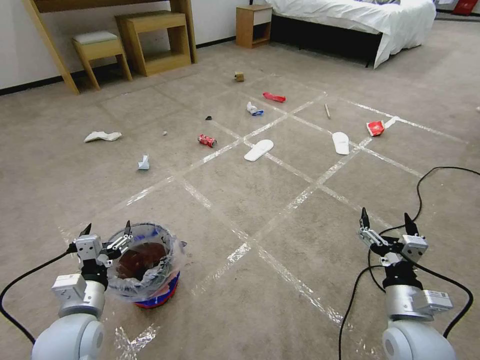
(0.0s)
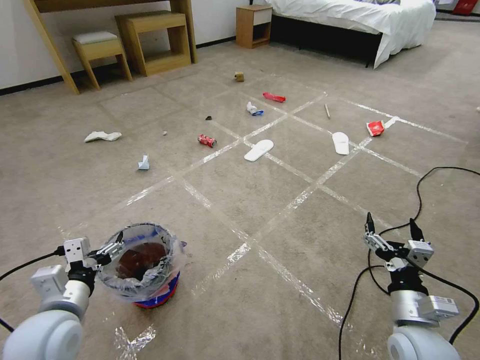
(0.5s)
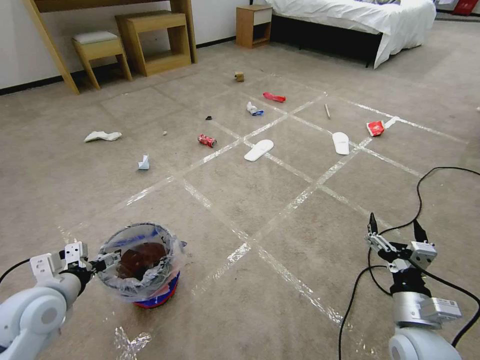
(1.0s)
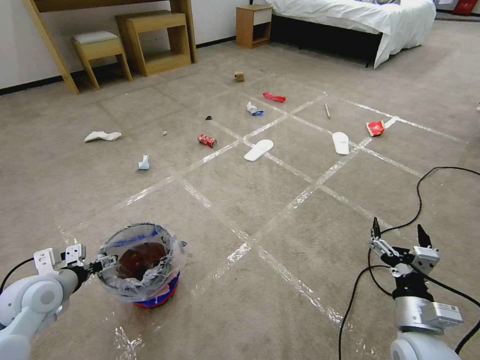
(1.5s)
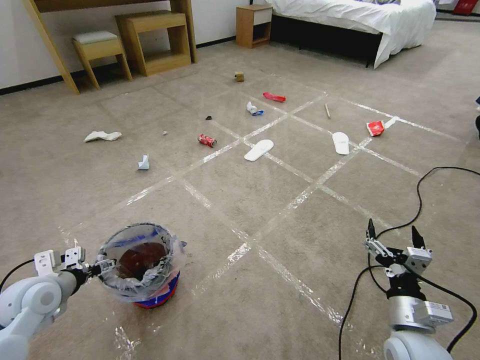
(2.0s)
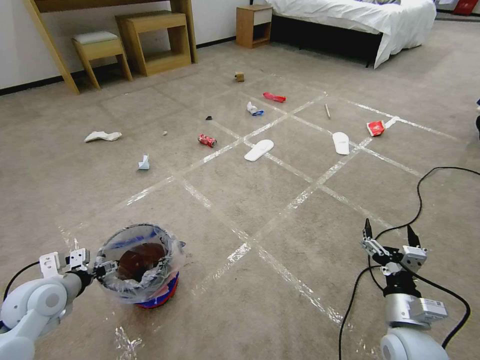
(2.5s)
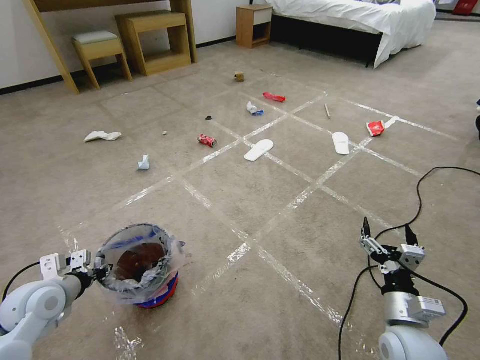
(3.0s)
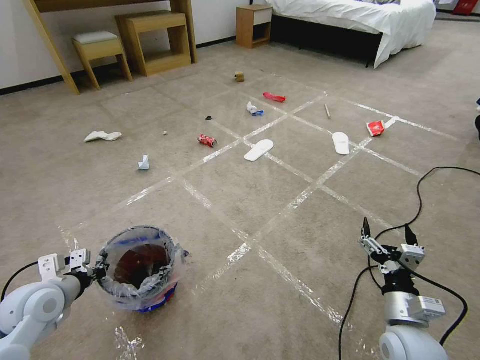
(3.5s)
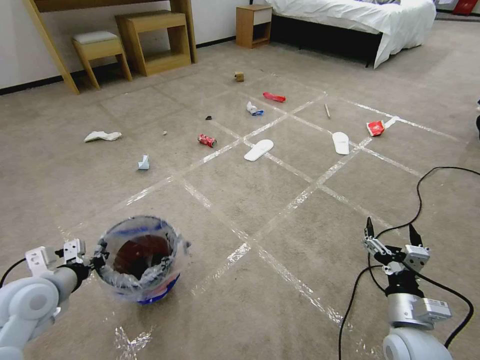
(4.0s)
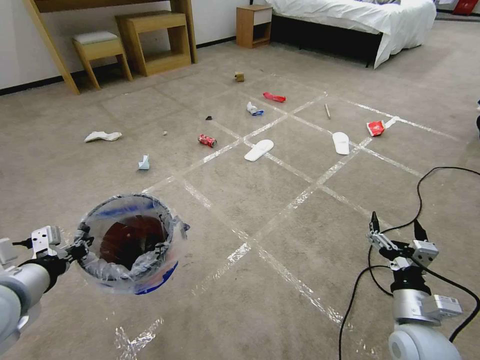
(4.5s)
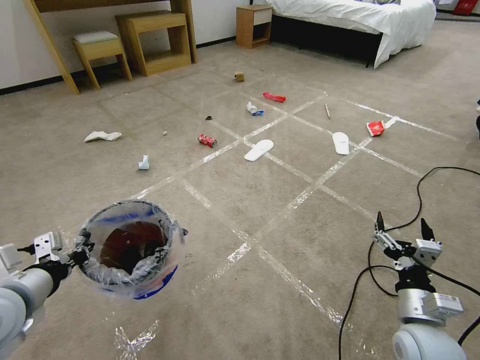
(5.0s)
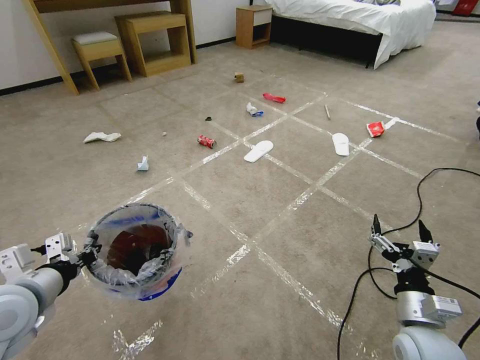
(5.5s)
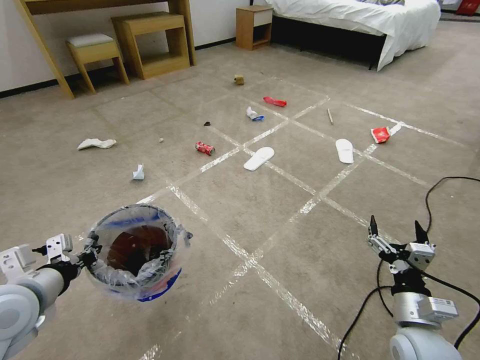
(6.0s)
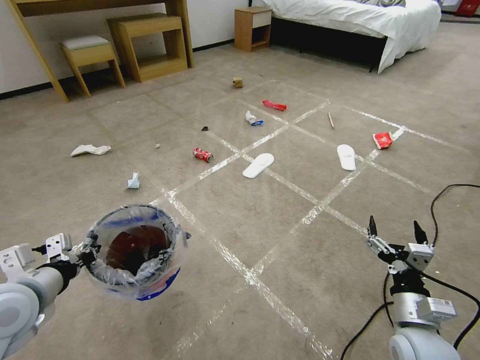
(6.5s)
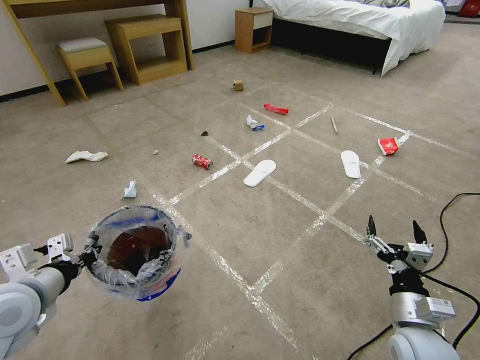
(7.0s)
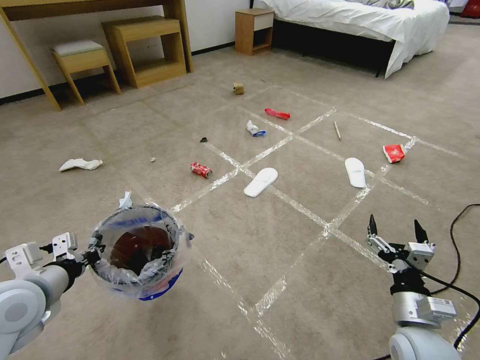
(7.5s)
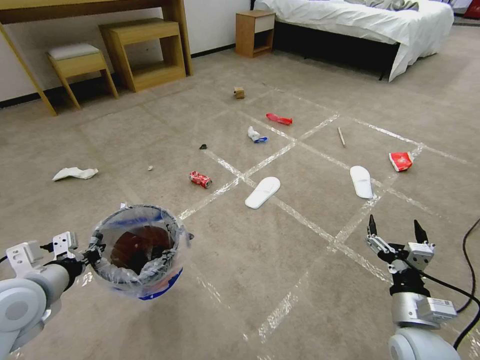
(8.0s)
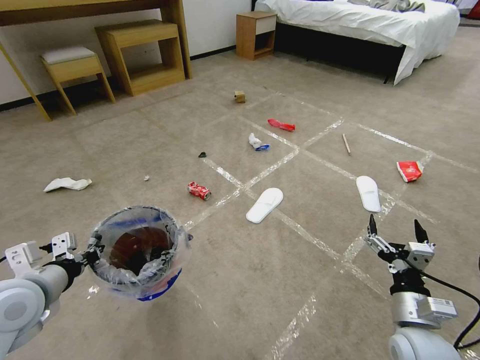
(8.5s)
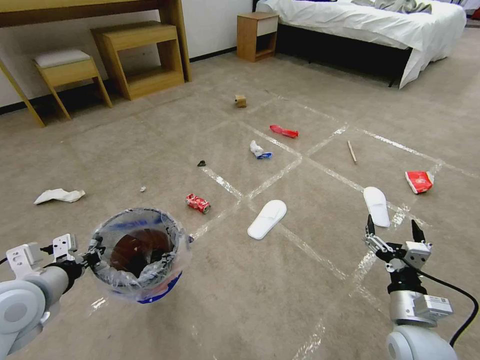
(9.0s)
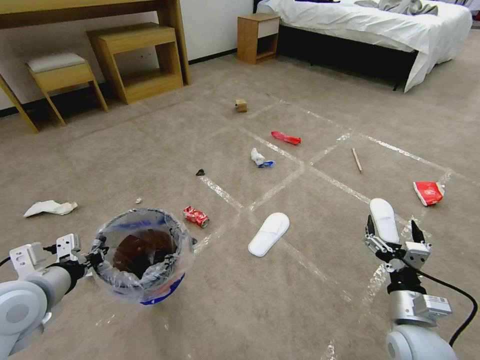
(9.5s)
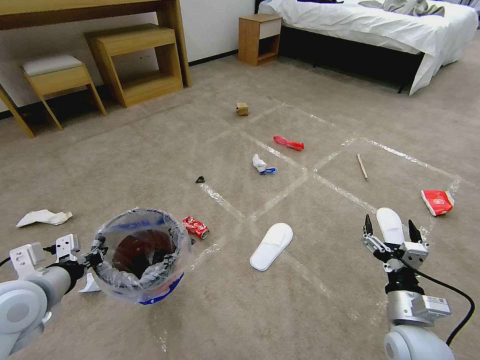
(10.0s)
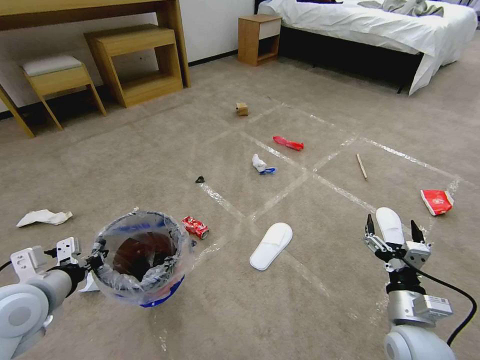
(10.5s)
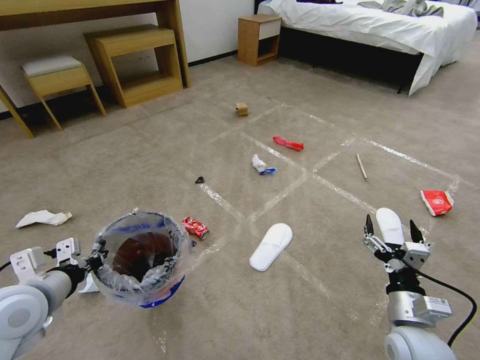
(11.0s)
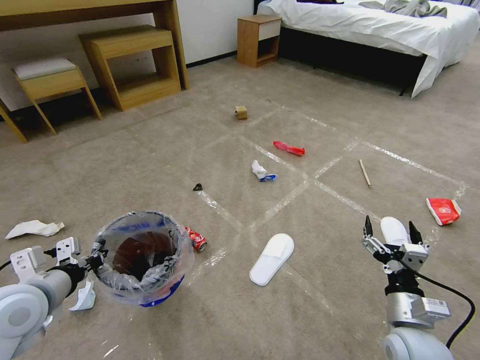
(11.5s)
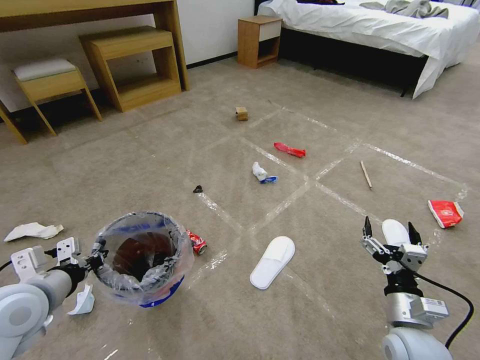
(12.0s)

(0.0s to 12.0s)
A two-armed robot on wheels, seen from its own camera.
Task of the whole recording: Pick up the trash bin and place the garbage on the floor into it.
2.0s - 4.0s: The left gripper ends up about 5 cm from where it was, and closes its fingers.
4.0s - 6.0s: The left gripper shifts about 5 cm upward.
10.0s - 12.0s: Both grippers stay about where they are.

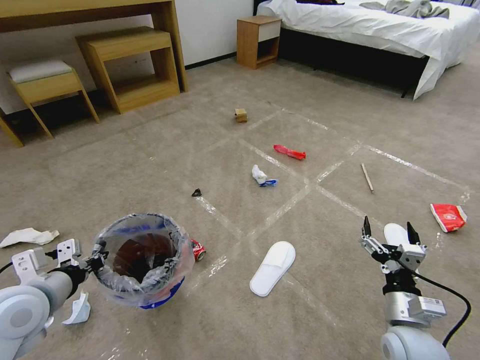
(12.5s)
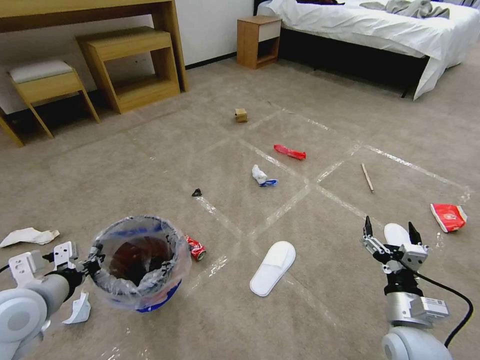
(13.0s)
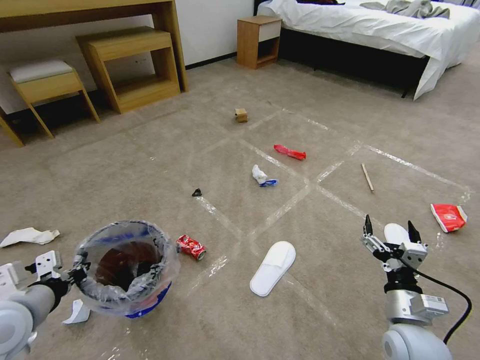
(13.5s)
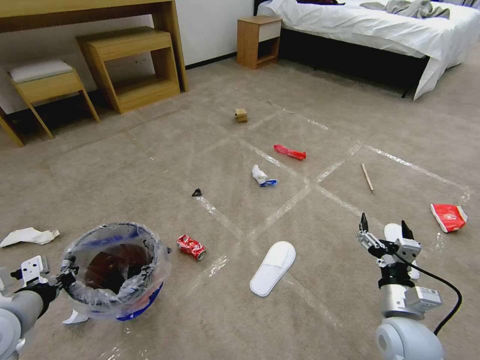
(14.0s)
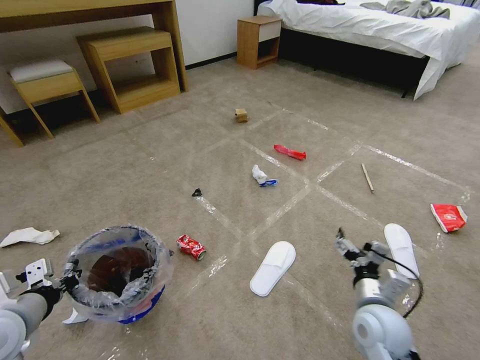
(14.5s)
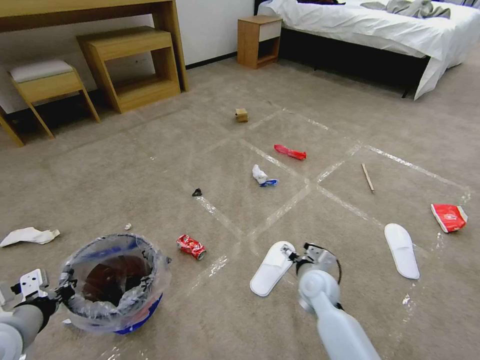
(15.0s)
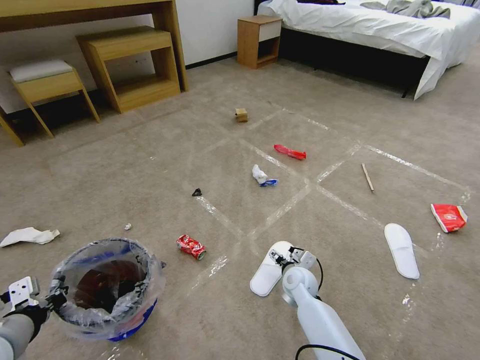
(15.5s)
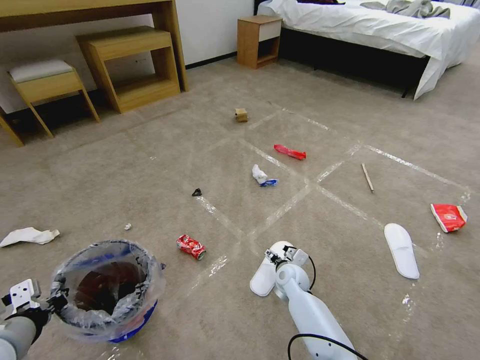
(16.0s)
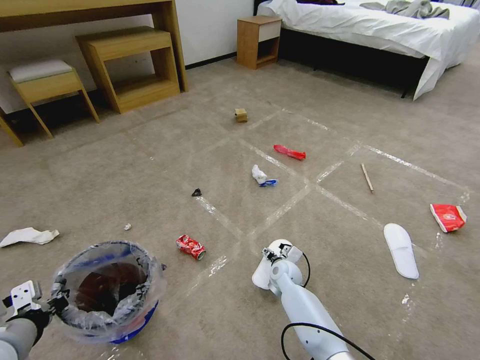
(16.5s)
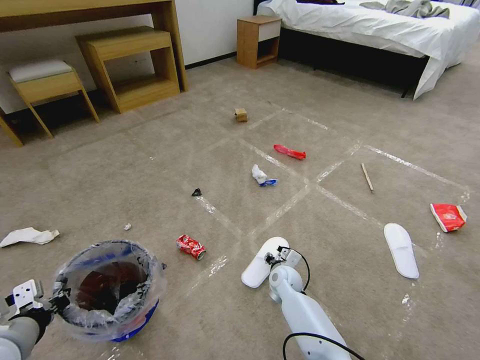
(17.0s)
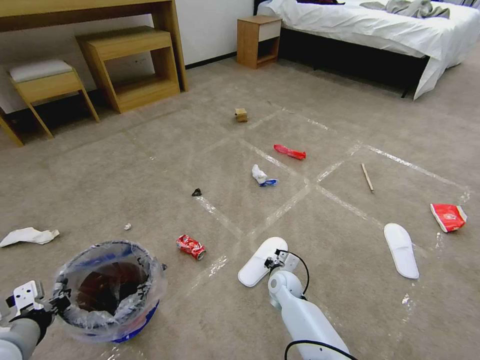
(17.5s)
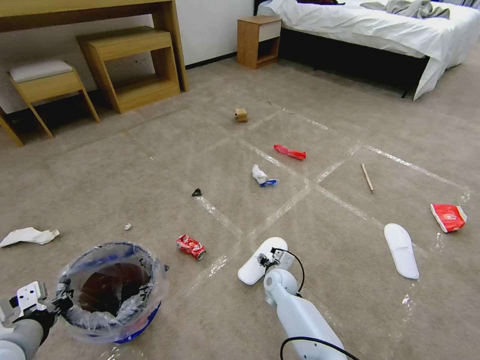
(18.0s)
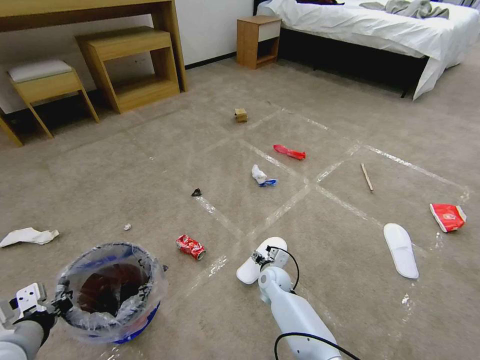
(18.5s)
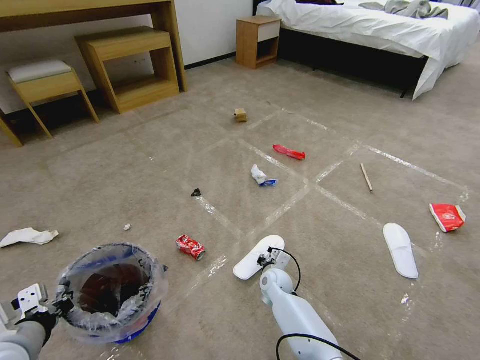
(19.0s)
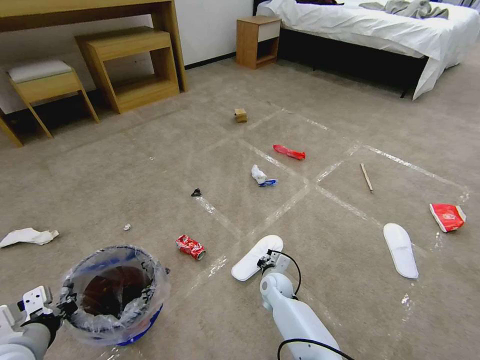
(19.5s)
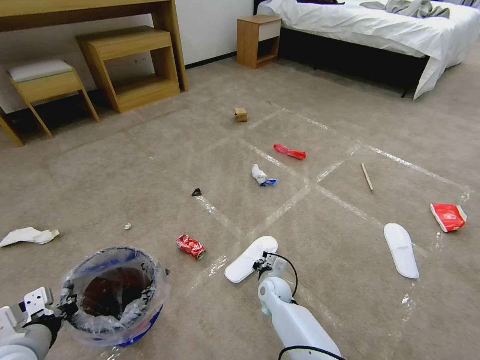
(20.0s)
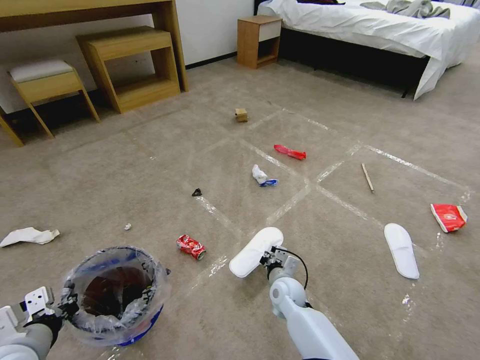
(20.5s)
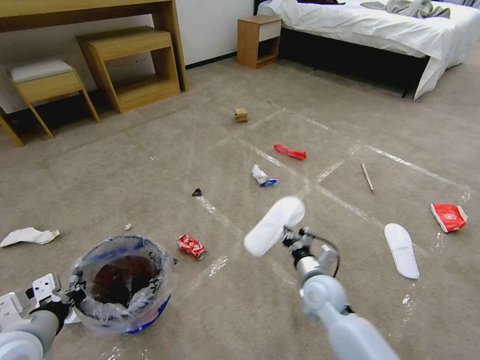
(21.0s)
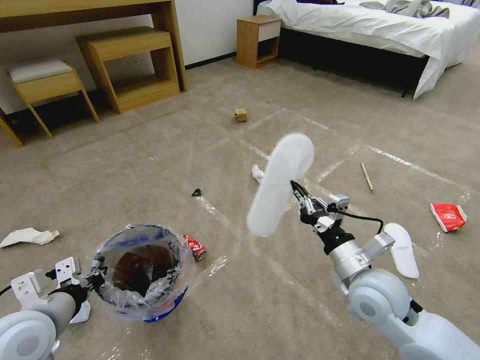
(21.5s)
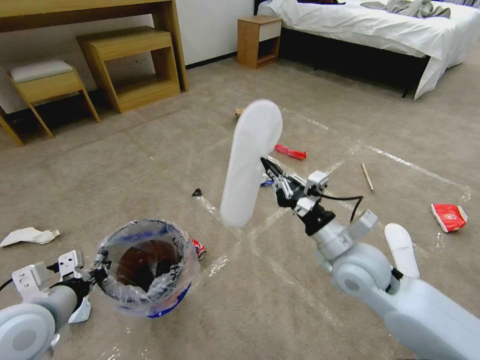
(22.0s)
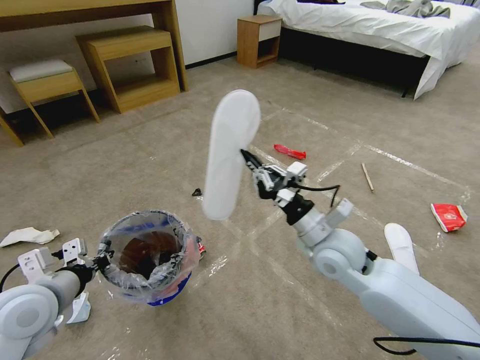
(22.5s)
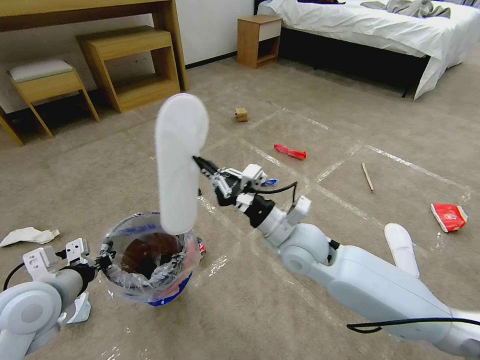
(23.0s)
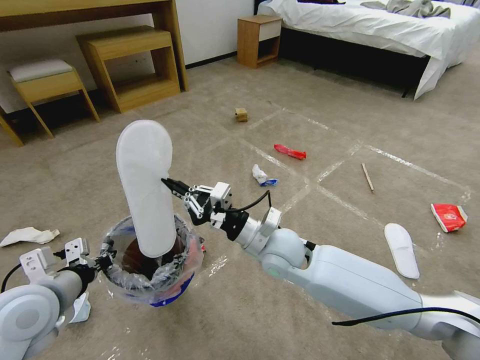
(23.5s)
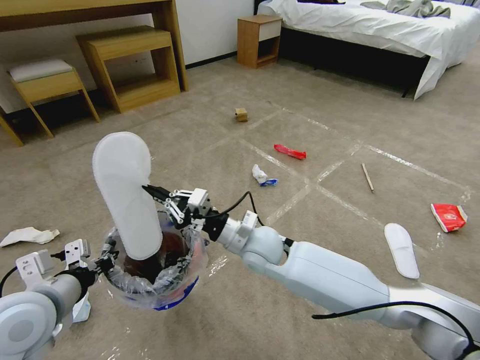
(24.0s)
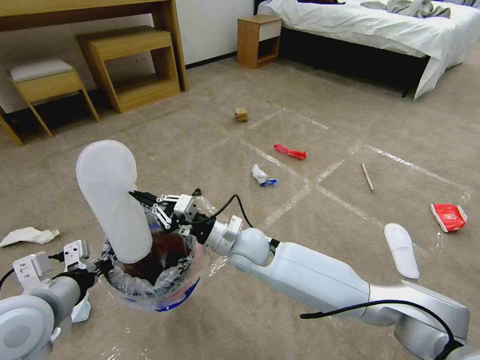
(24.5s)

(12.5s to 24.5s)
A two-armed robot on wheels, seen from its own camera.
Task of the whole recording: Pick up the trash bin and place the garbage on the floor into it.
12.5s - 14.5s: The right gripper moves roughly 5 cm.
14.5s - 16.5s: The right gripper is displaced forward, downward and to the left by approximately 25 cm.
16.5s - 18.5s: The right gripper closes, then opens again.
18.5s - 20.5s: The right gripper changes place by some 5 cm, and closes.
20.5s - 22.5s: The right gripper shifts some 25 cm upward. Meanwhile the left gripper shifts approximately 10 cm forward and upward.
22.5s - 24.5s: The right gripper travels to the left by about 15 cm.

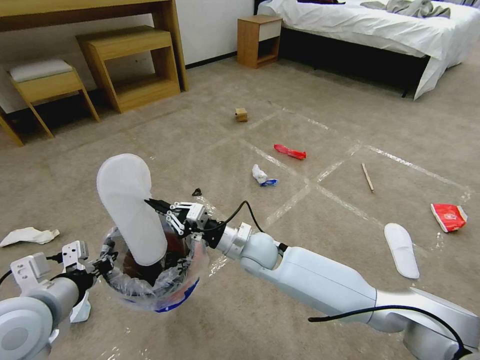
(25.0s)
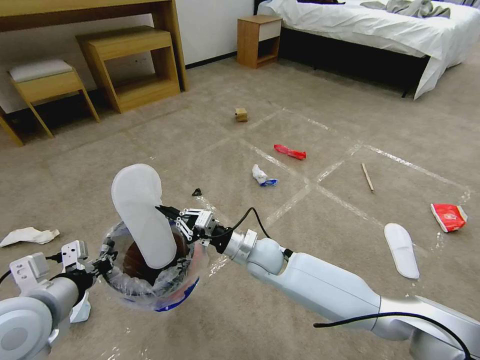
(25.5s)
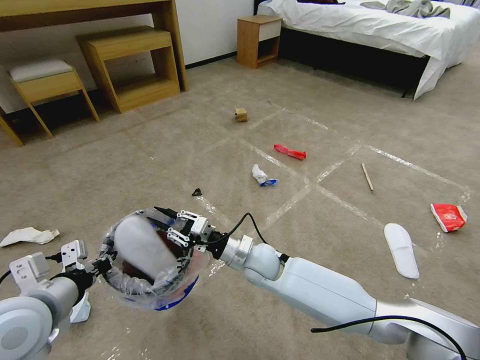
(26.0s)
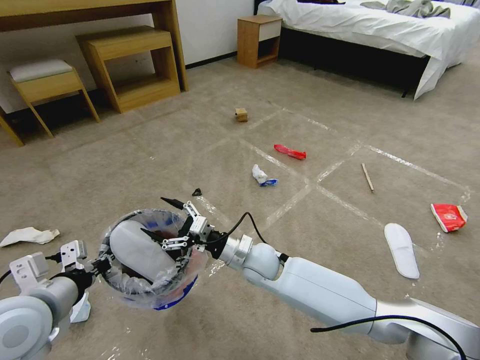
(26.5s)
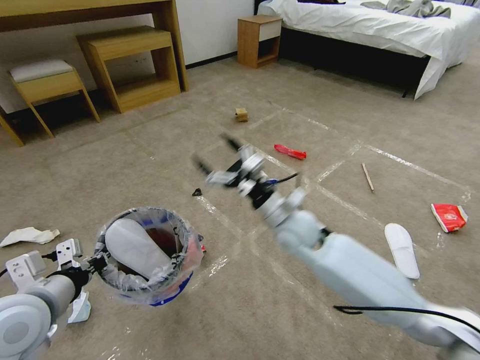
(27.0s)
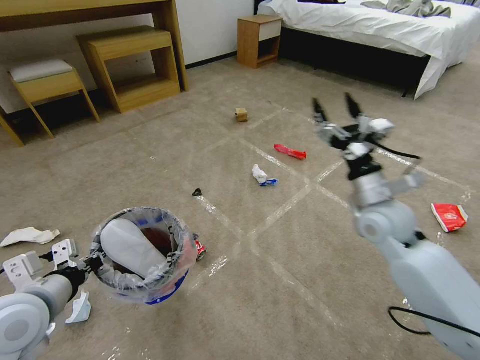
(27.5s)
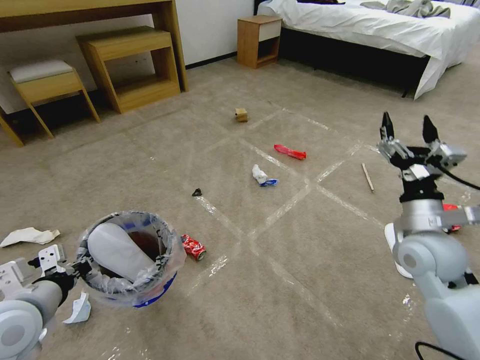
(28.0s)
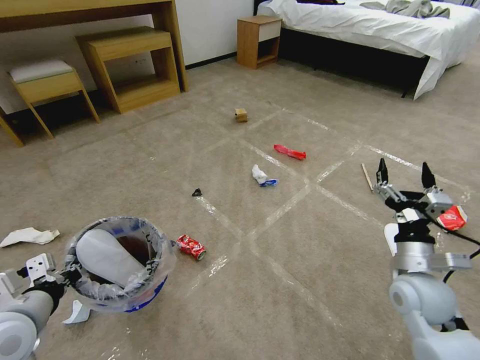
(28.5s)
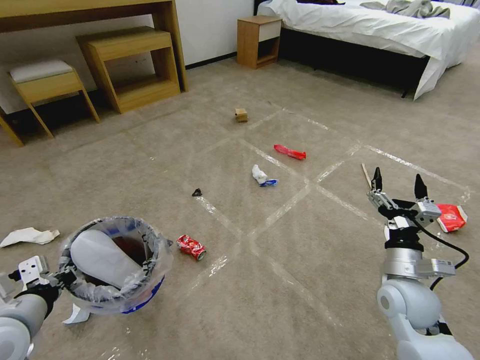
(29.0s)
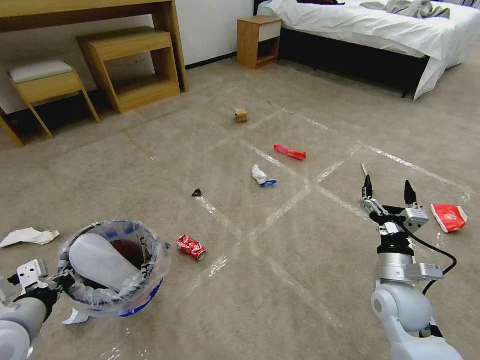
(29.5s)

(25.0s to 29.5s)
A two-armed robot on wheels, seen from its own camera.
Task of the whole recording: Pick up the trash bin and place the garbage on the floor into it.
25.0s - 27.0s: The right gripper travels to the right and upward by about 10 cm, and opens up.
27.0s - 29.5s: The right gripper moves to the right and backward, roughly 25 cm; the left gripper shifts by some 5 cm.
